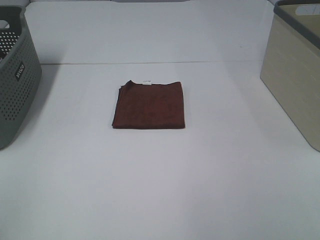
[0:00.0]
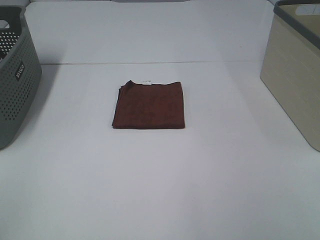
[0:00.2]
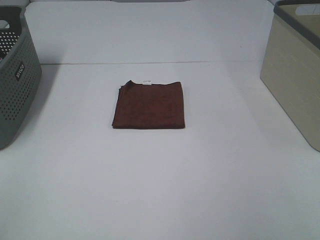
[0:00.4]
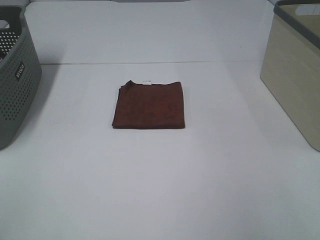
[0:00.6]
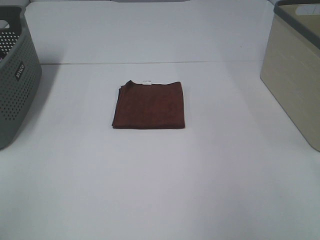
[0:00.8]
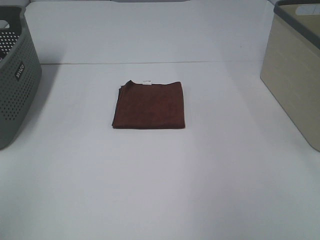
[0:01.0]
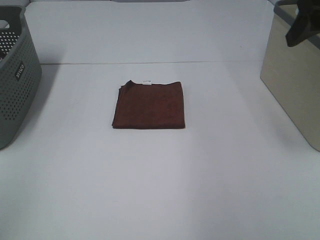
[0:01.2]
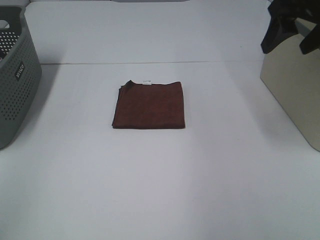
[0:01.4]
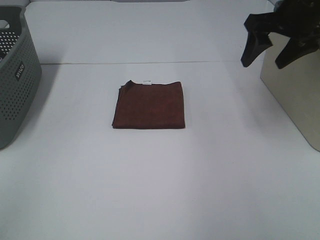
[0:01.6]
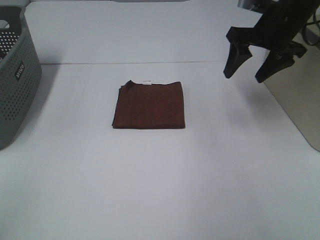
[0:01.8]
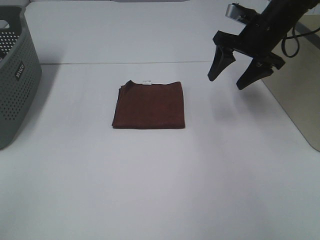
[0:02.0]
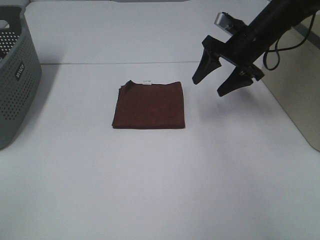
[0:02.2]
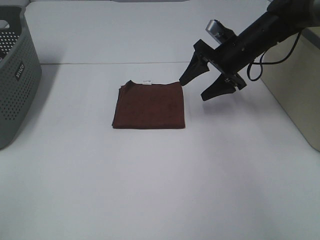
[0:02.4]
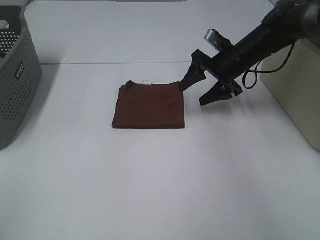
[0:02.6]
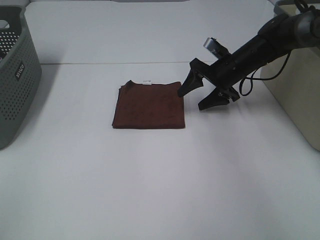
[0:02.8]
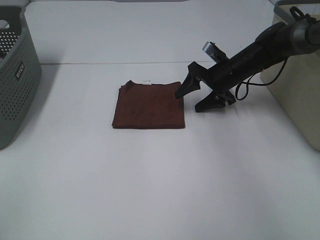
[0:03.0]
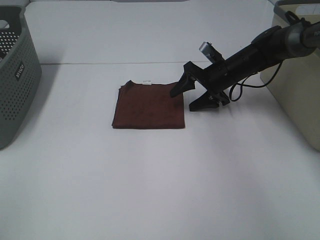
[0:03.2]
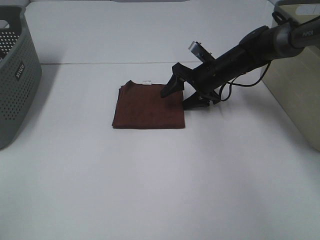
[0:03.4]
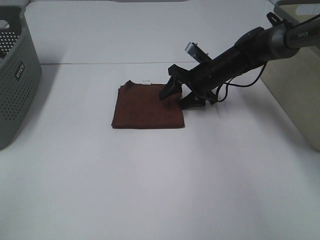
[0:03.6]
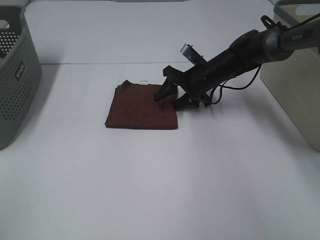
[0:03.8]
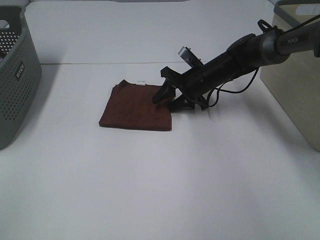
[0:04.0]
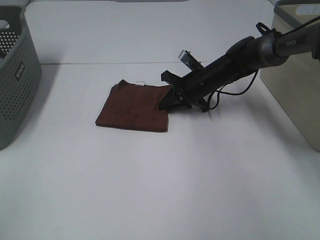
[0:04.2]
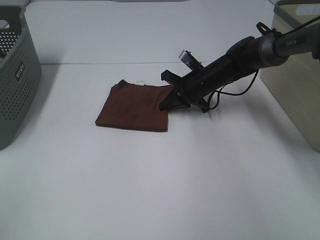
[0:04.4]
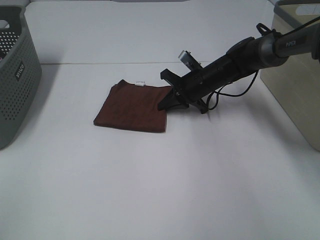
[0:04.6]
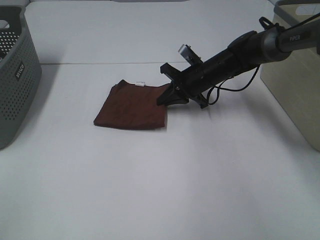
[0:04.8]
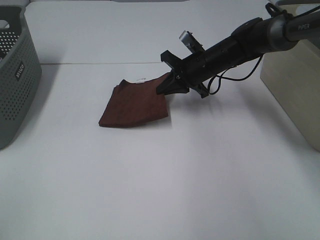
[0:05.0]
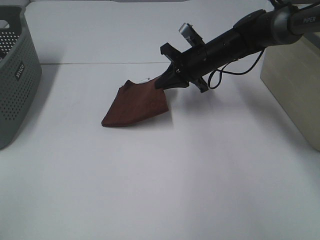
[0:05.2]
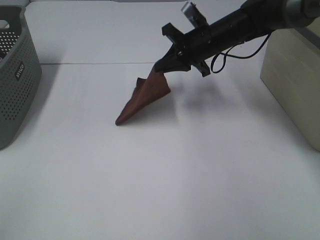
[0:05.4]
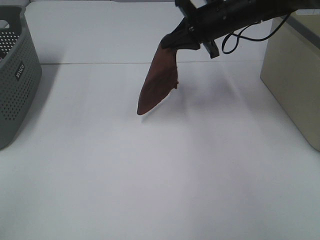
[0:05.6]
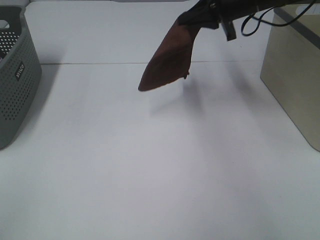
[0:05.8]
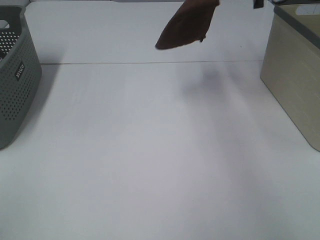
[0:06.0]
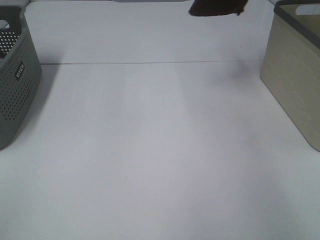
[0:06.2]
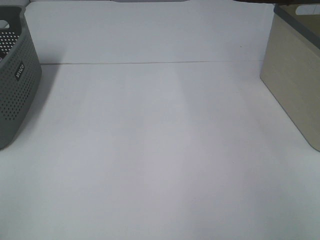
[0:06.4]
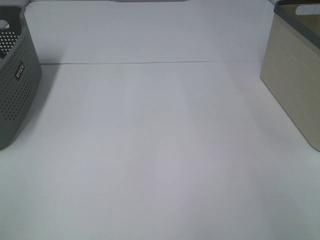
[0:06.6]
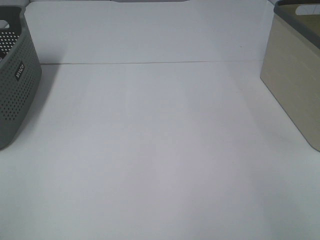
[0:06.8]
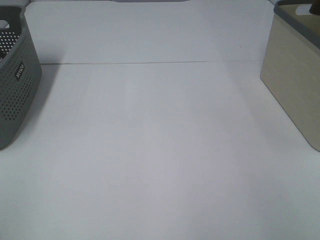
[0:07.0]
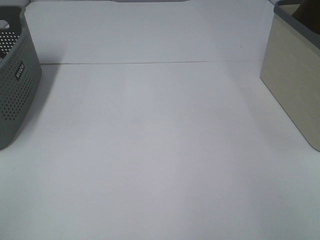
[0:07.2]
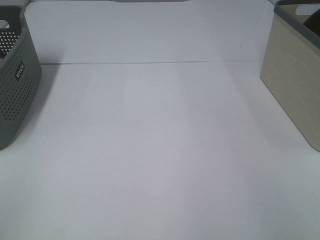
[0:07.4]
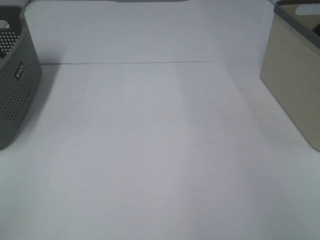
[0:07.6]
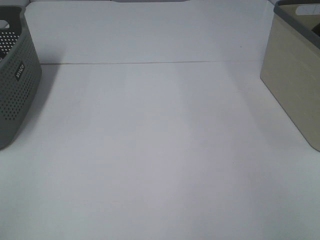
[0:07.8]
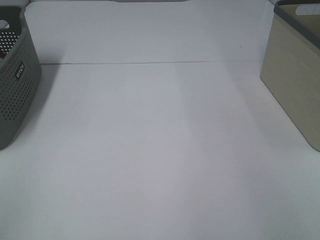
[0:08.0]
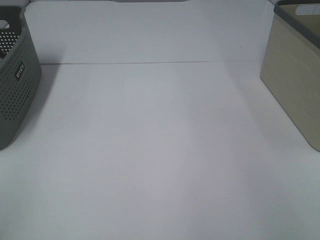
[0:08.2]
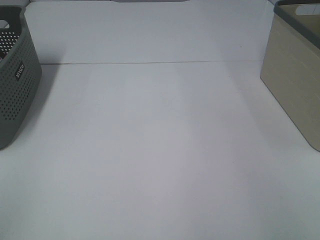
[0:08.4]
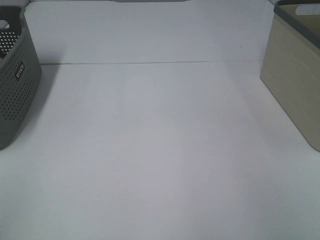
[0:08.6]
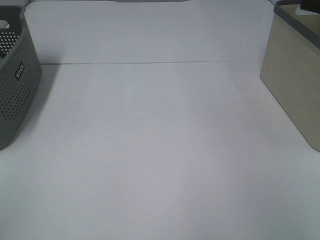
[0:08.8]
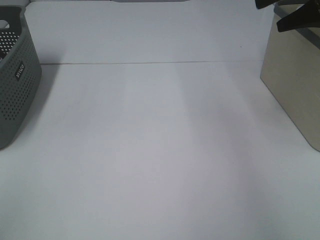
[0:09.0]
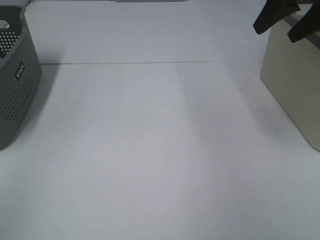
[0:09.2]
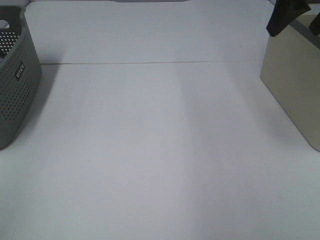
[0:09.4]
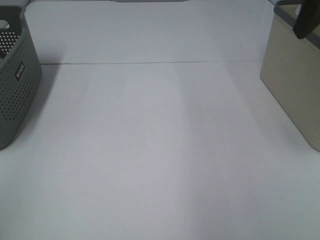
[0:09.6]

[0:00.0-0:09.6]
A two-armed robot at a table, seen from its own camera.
Step, 0:00.0 to 0:04.2: Right hand: grab the folded brown towel.
Step, 0:04.4 to 0:08.0: Right hand: place the brown towel in right basket.
0:00.0 to 0:01.6: The right gripper travels forward by roughly 40 cm.
0:01.6 to 0:03.2: The right gripper is displaced downward and forward by about 20 cm.
0:03.2 to 0:04.8: The right gripper closes.
0:04.8 to 0:06.4: The right gripper is displaced upward and to the right by approximately 40 cm.
0:08.0 to 0:09.6: The right gripper shifts about 25 cm to the left, upward and backward.

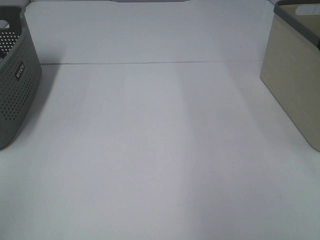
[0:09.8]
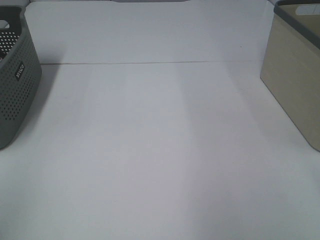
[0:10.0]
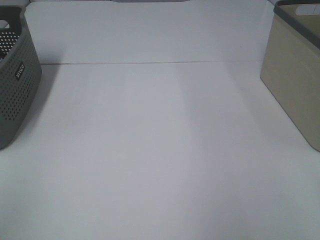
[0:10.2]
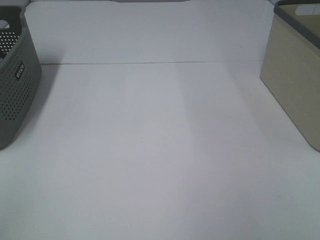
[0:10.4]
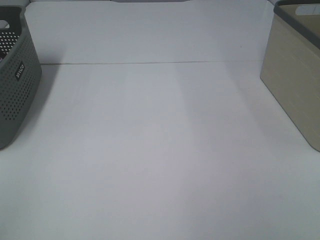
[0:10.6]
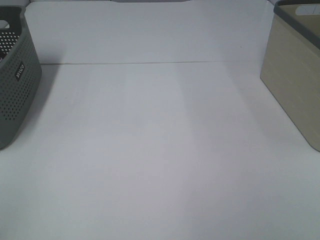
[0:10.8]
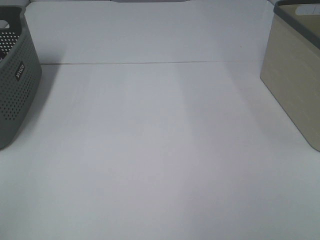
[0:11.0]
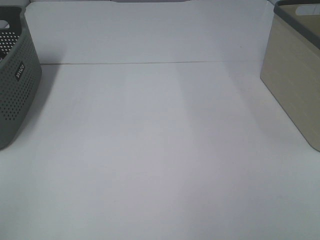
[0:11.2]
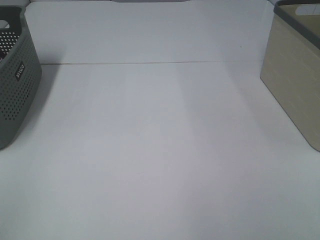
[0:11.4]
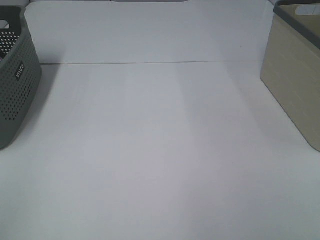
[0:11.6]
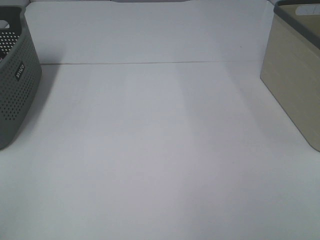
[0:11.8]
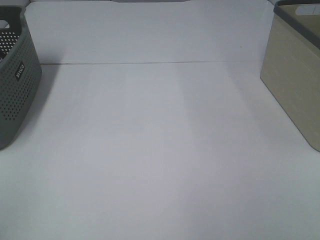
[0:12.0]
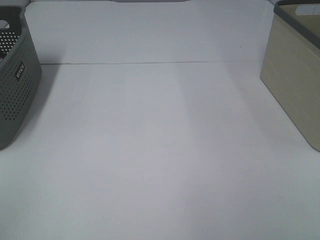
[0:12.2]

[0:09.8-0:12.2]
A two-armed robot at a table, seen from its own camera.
0:11.0 to 0:12.2: Both grippers stay put.

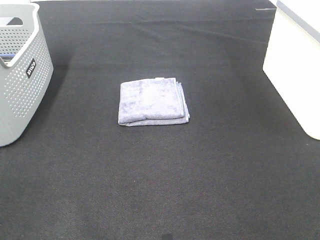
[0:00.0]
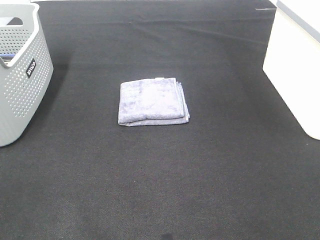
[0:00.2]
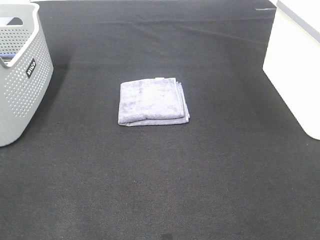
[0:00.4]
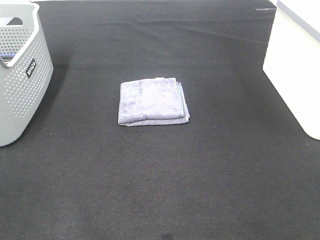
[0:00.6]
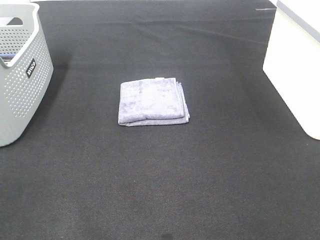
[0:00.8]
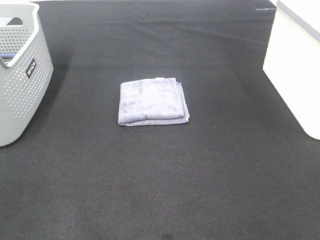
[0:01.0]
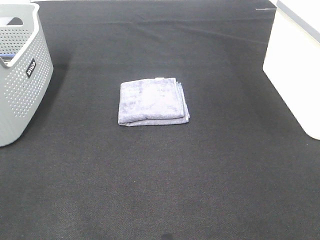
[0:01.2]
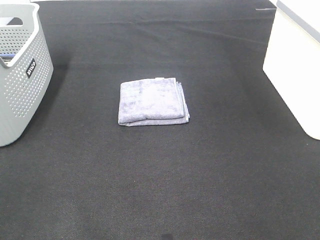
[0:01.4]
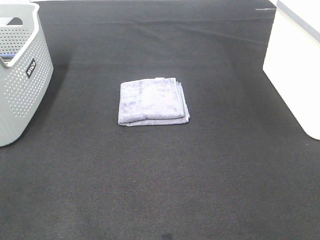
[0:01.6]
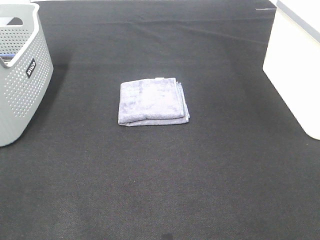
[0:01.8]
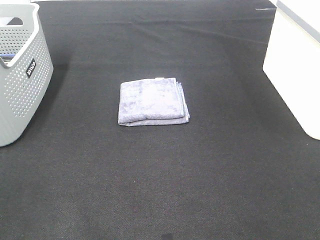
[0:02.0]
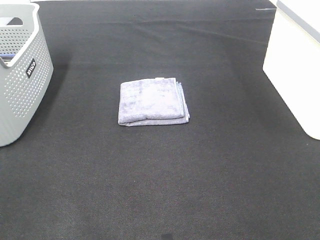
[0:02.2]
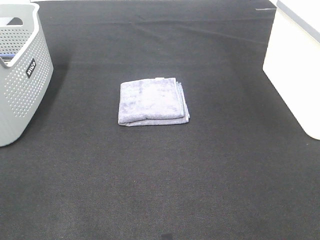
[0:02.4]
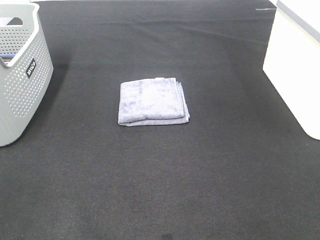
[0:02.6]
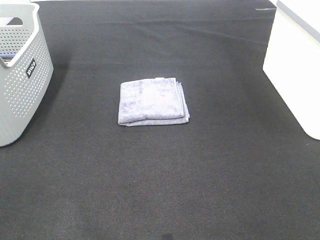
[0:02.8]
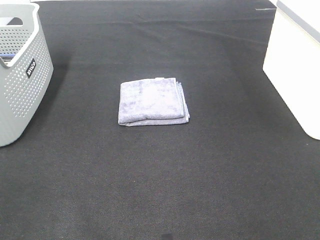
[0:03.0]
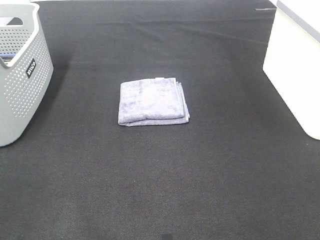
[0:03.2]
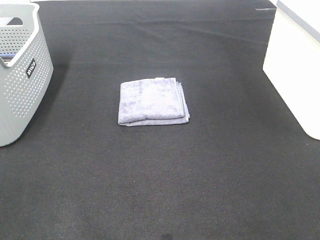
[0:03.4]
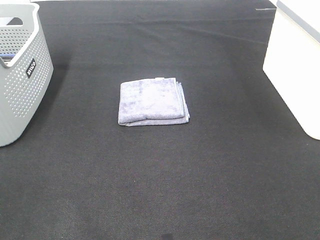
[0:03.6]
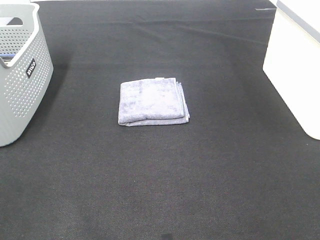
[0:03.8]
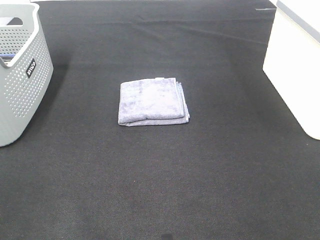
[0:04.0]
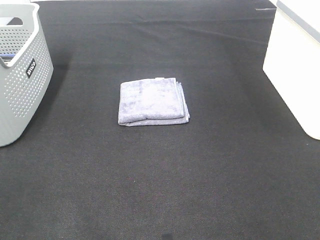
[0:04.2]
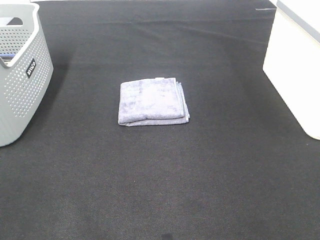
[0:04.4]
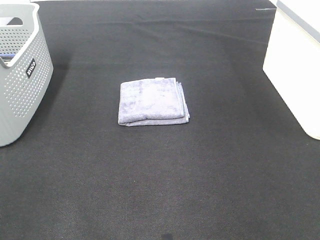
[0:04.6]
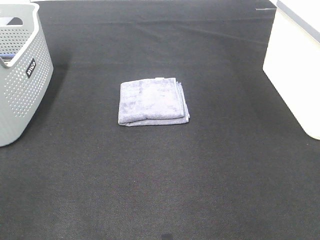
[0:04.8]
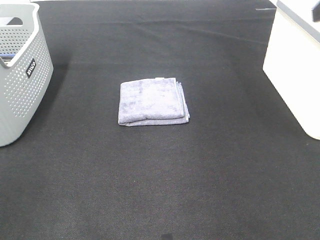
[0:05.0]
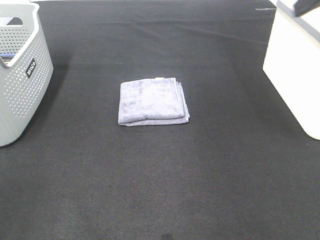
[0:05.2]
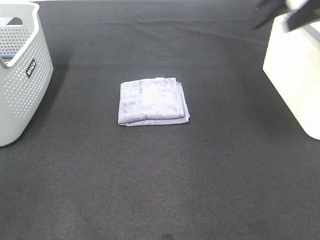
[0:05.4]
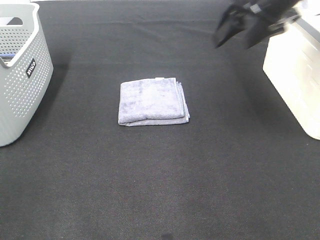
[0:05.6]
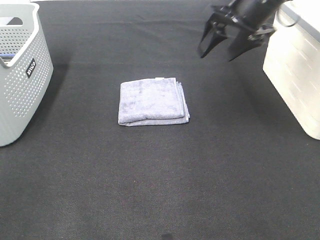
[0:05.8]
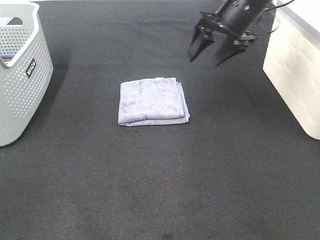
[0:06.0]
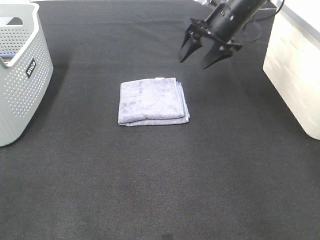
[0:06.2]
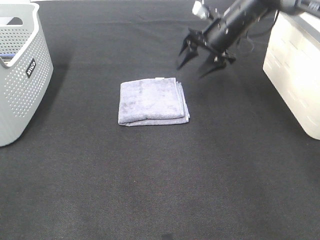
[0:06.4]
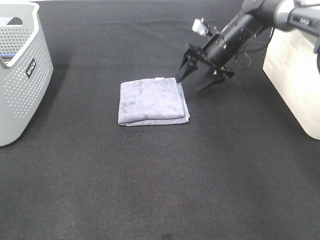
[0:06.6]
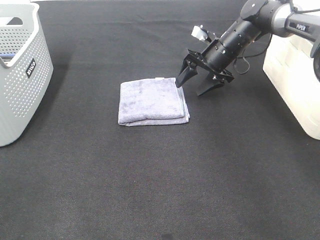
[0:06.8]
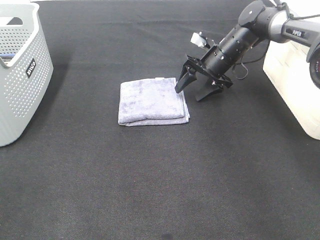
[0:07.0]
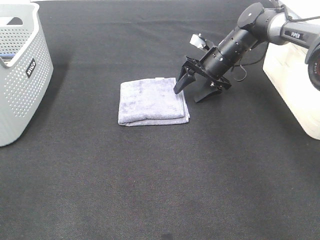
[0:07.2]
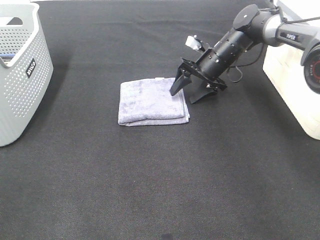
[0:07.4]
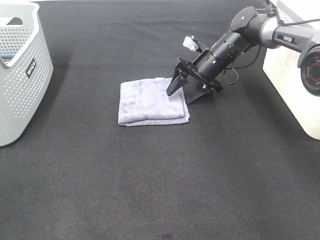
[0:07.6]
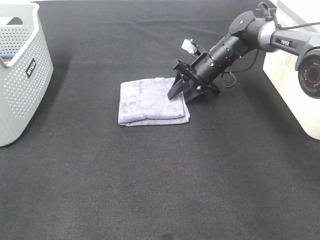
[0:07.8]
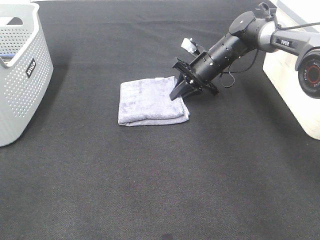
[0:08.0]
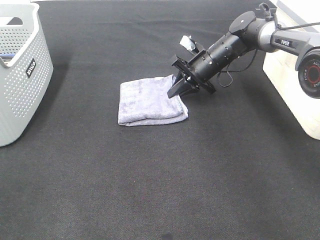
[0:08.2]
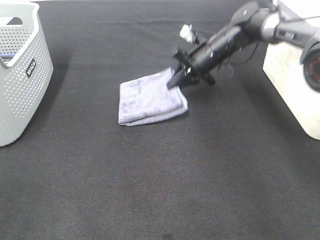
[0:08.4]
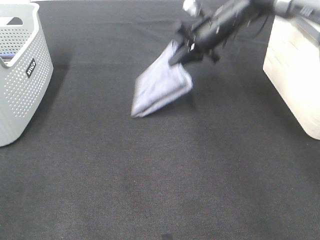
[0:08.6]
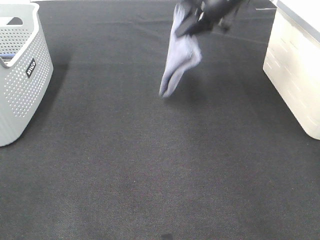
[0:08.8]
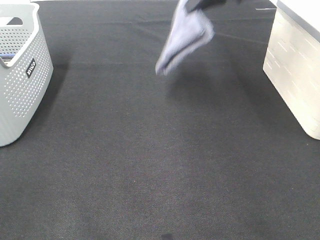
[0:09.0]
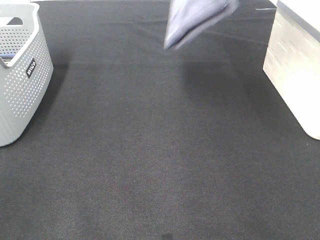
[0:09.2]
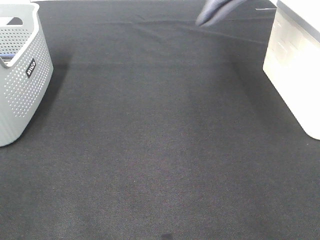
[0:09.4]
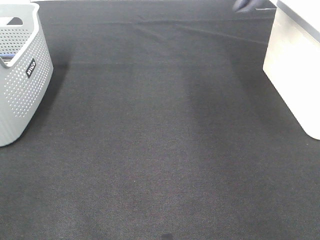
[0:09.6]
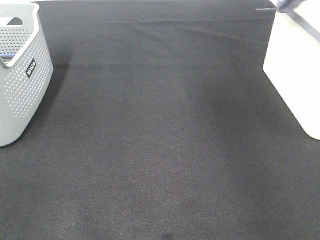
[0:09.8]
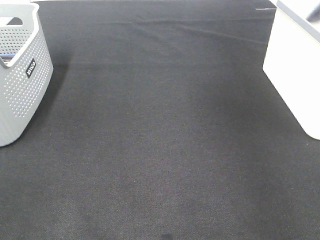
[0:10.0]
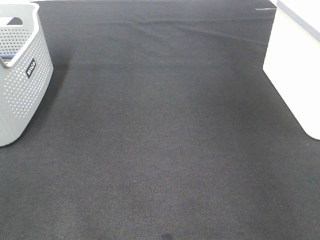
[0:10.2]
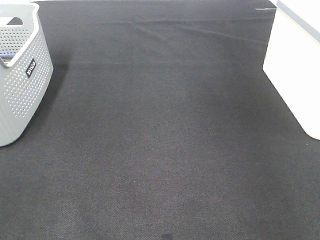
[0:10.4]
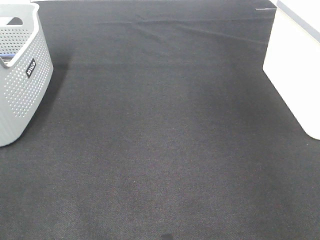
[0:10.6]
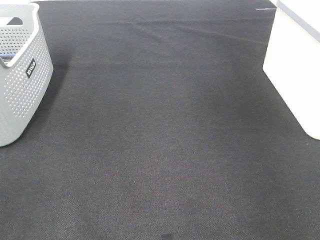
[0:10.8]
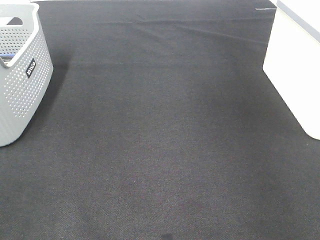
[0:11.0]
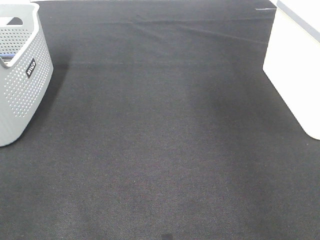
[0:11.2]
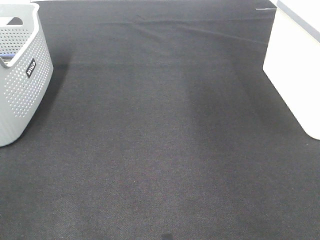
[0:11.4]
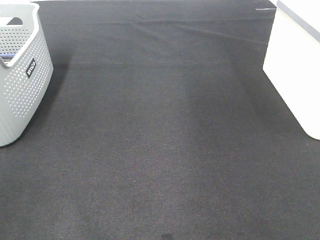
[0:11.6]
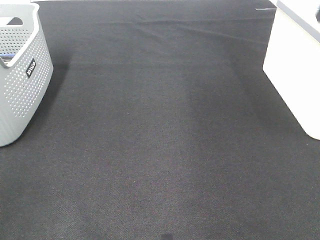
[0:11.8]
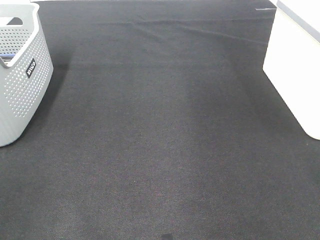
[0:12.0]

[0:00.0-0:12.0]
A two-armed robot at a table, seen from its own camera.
Step, 0:00.0 to 0:08.0: Right hand: grab the folded grey towel.
Step, 0:08.2 to 0:10.8: Right hand: place the grey towel in right basket.
0:00.0 to 0:03.0: The two grippers keep their place.
0:04.4 to 0:06.0: The right gripper is displaced forward by some 40 cm.
0:06.0 to 0:07.6: The right gripper shifts roughly 15 cm downward.
0:07.6 to 0:09.0: The right gripper shifts some 25 cm upward, and closes.
0:09.0 to 0:10.4: The right gripper travels to the right by approximately 25 cm.
